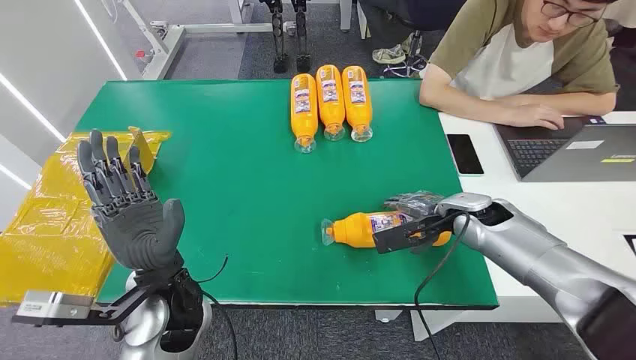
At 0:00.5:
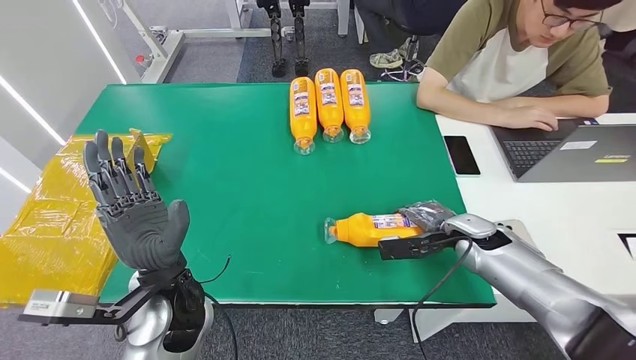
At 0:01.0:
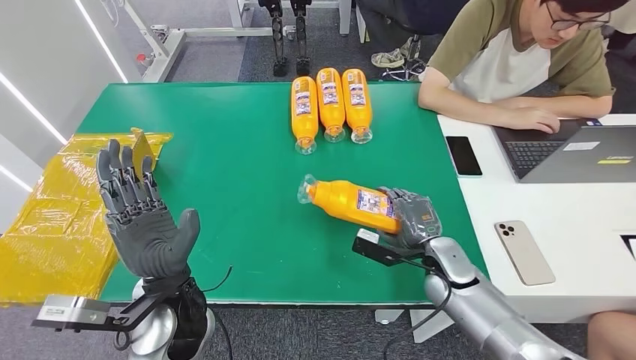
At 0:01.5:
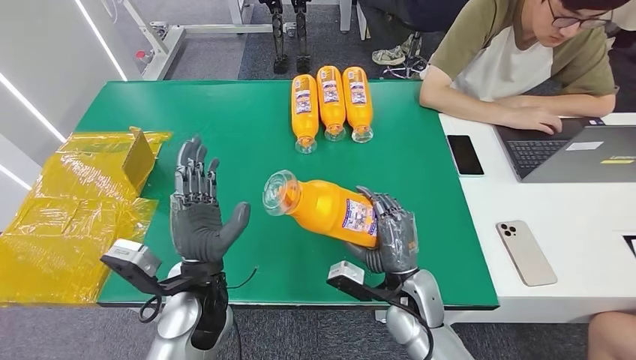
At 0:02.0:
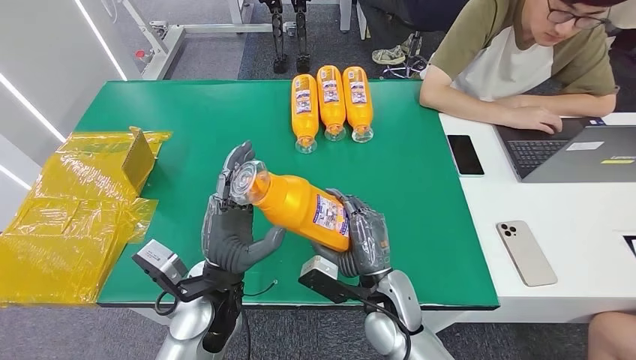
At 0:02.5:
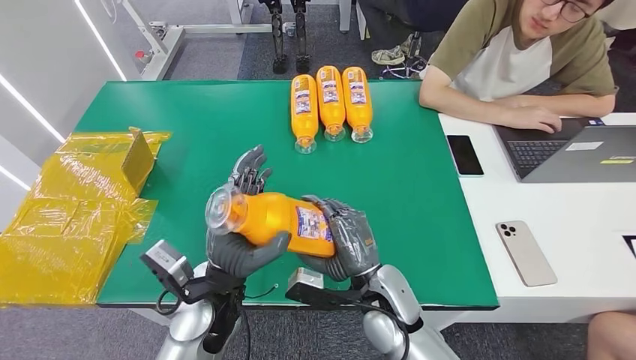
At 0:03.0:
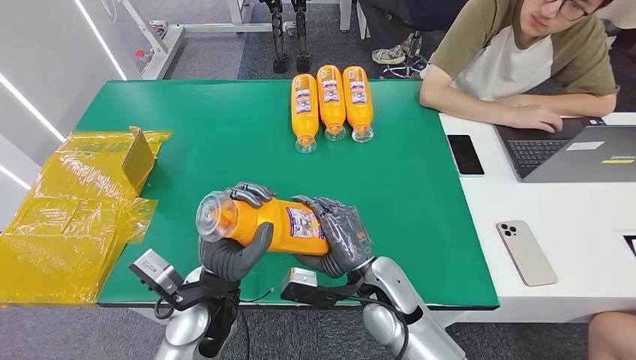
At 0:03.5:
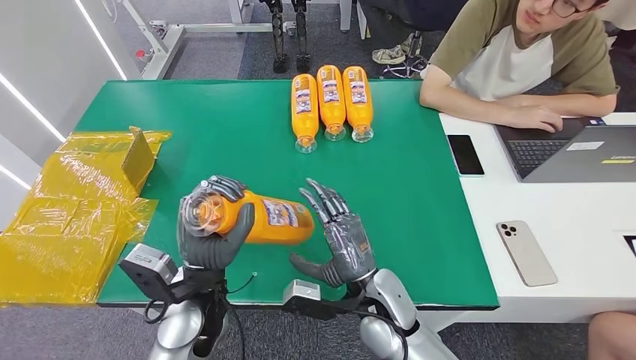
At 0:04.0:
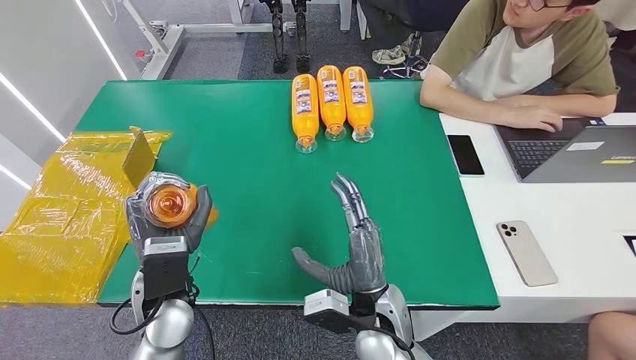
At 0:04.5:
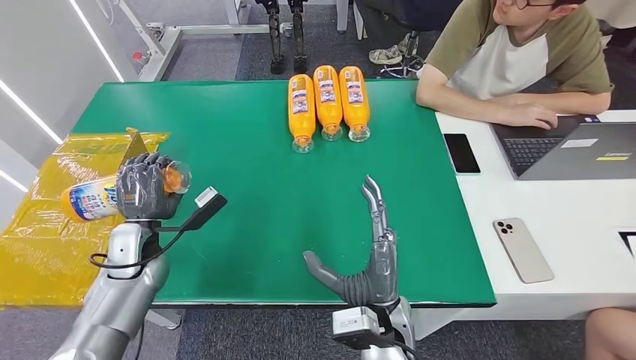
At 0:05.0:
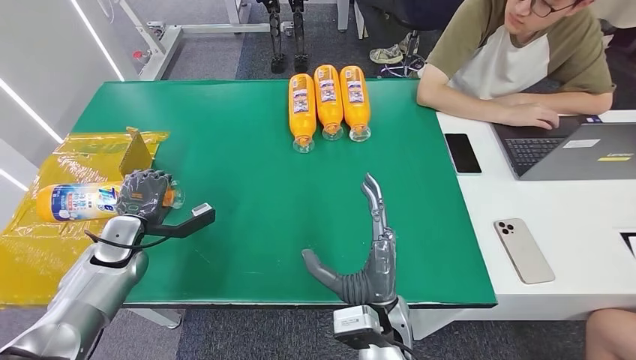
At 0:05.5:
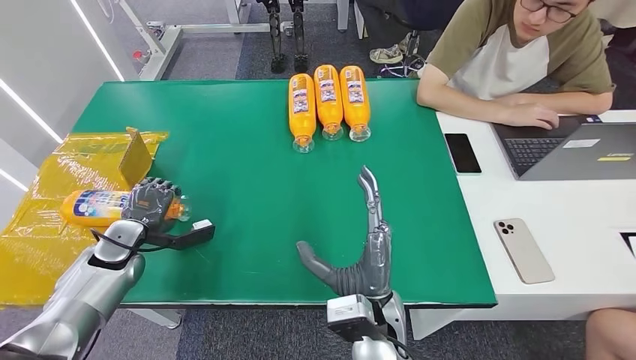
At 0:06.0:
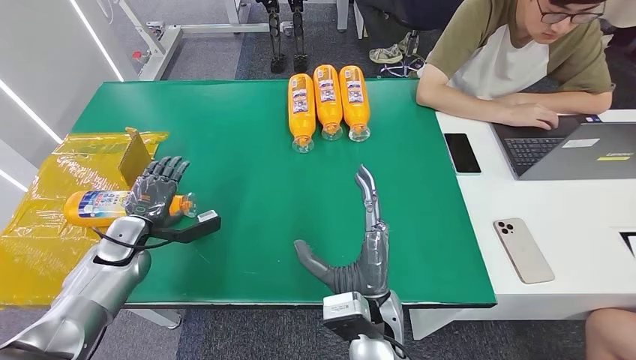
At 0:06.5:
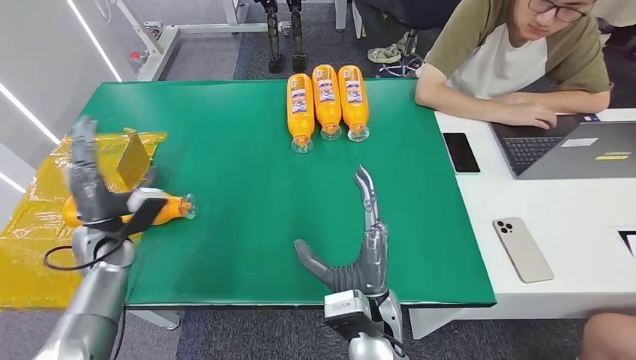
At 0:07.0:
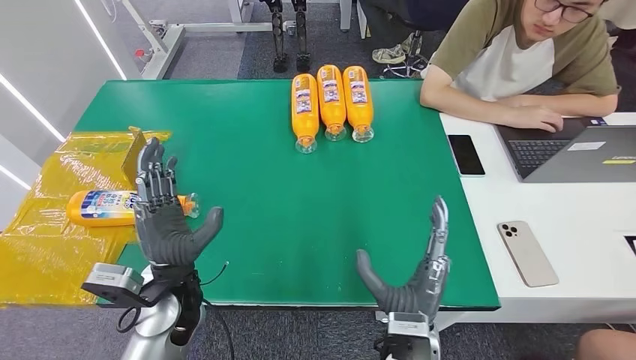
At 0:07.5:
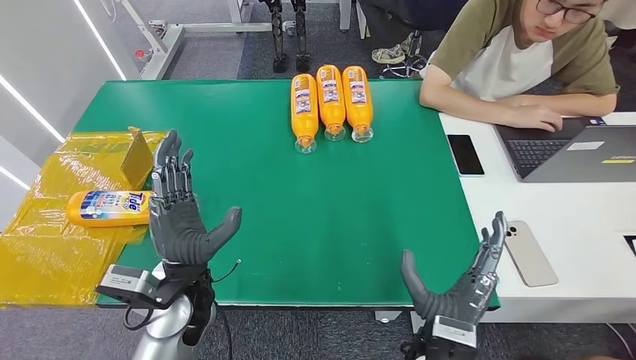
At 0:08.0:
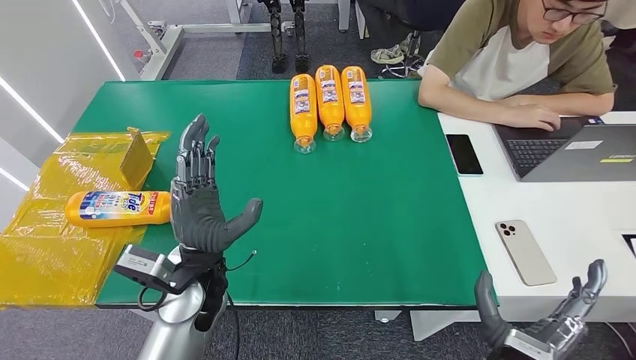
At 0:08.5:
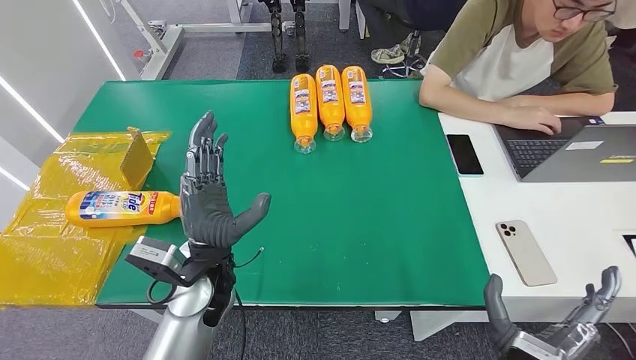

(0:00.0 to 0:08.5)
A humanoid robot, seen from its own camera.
Step, 0:00.0 - 0:02.5: Pick up the bottle from the table.
Step, 0:03.0 - 0:08.0: Turn the bottle to the front side.
0:02.0 - 0:04.0: The left hand travels to the left by roughly 5 cm.
